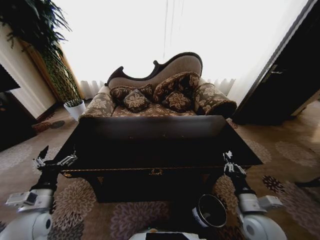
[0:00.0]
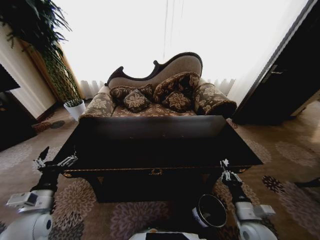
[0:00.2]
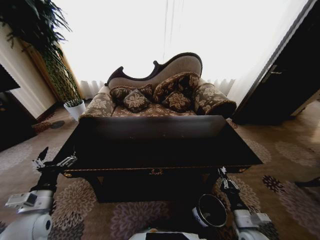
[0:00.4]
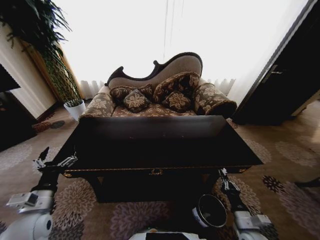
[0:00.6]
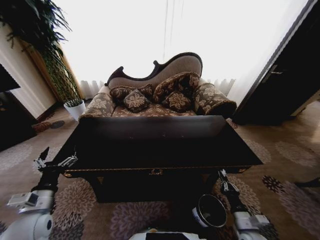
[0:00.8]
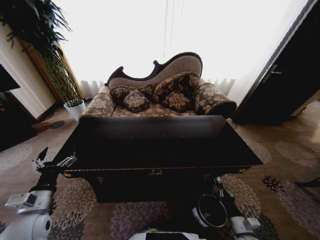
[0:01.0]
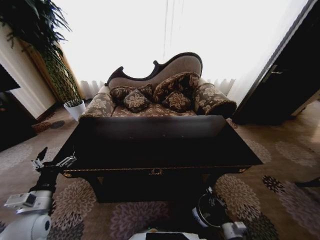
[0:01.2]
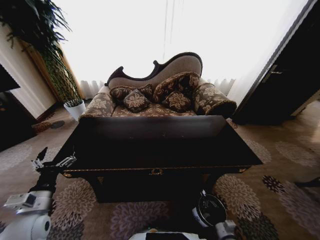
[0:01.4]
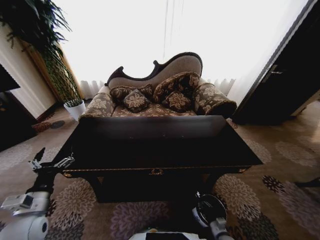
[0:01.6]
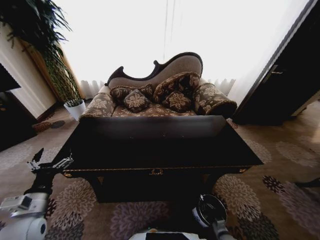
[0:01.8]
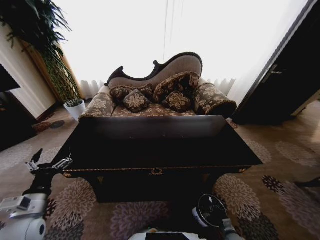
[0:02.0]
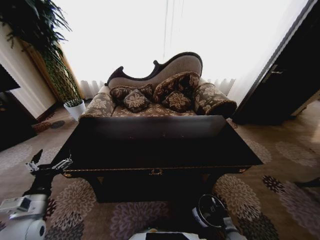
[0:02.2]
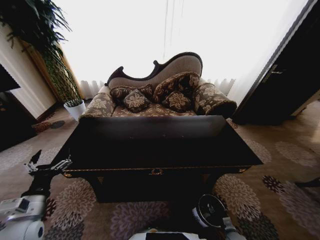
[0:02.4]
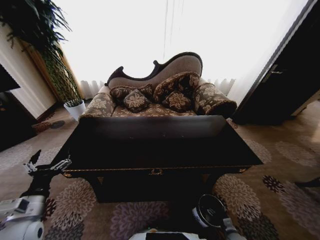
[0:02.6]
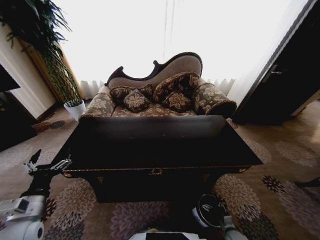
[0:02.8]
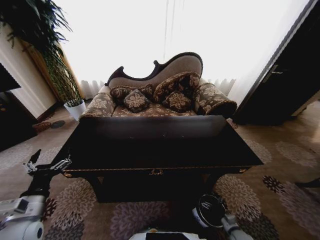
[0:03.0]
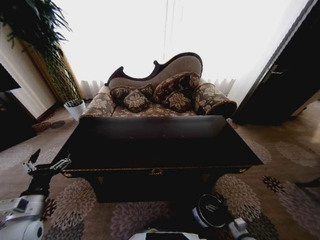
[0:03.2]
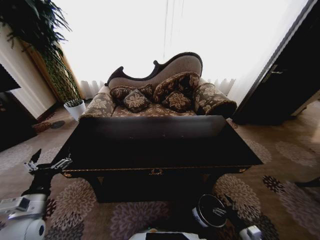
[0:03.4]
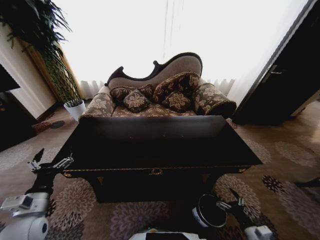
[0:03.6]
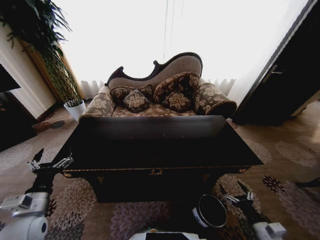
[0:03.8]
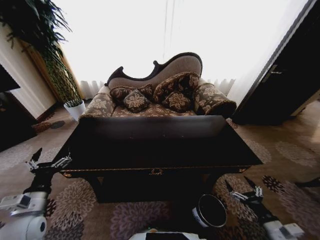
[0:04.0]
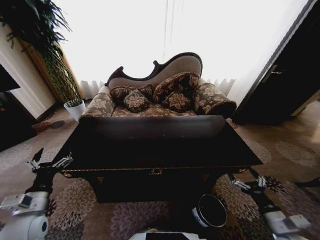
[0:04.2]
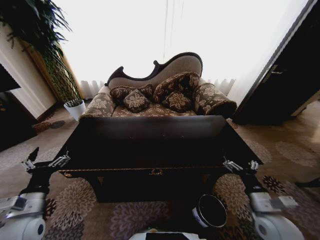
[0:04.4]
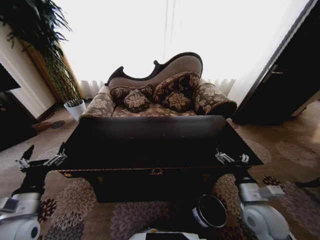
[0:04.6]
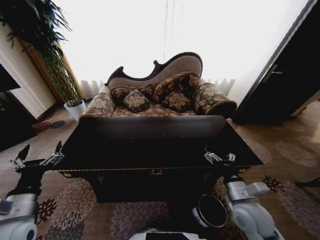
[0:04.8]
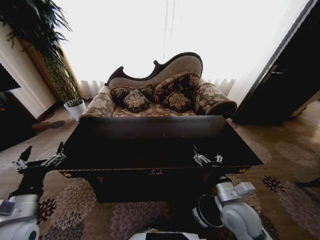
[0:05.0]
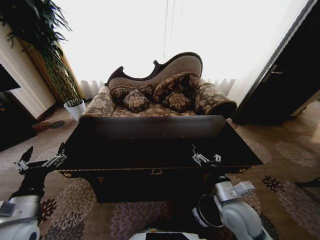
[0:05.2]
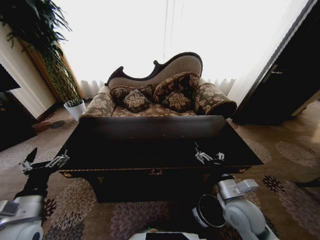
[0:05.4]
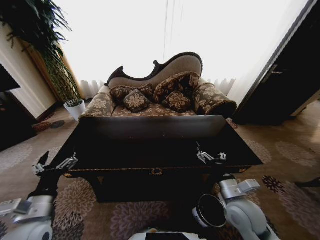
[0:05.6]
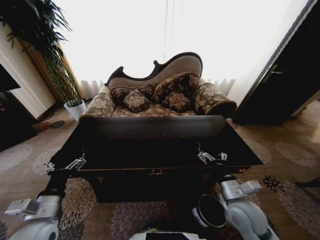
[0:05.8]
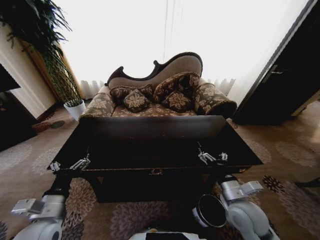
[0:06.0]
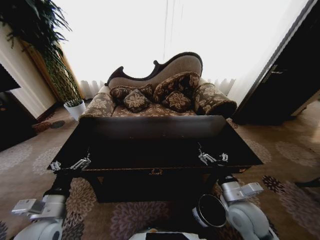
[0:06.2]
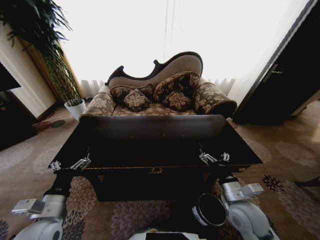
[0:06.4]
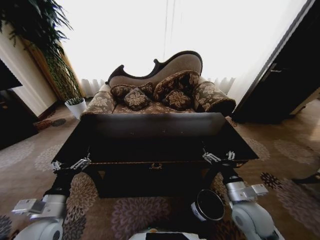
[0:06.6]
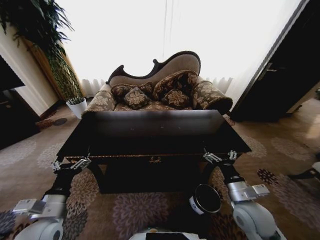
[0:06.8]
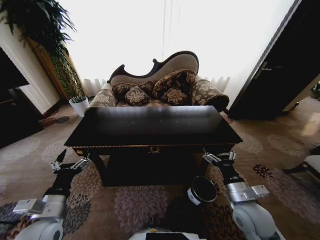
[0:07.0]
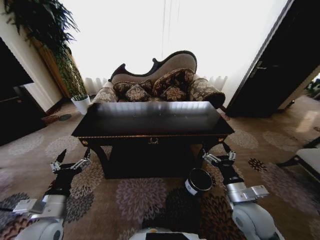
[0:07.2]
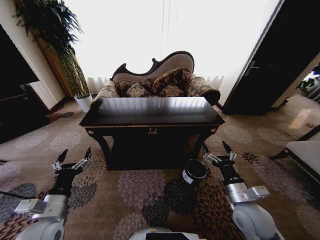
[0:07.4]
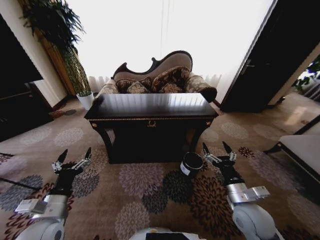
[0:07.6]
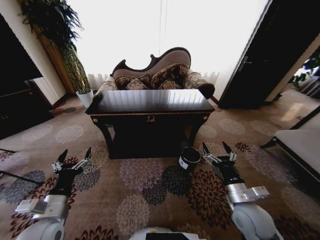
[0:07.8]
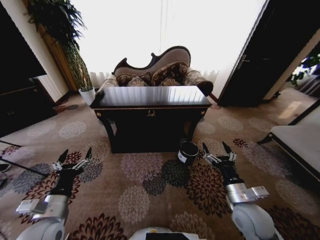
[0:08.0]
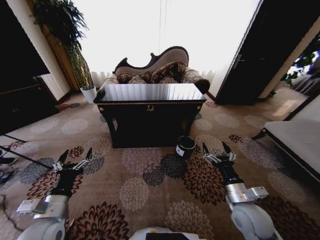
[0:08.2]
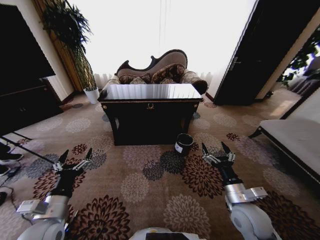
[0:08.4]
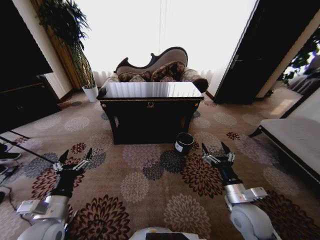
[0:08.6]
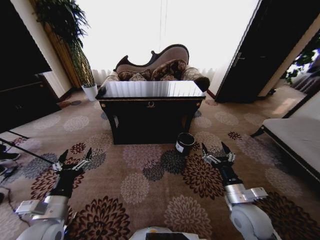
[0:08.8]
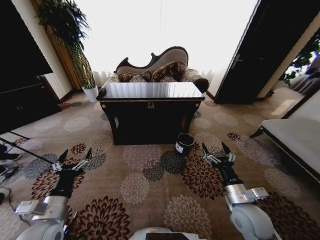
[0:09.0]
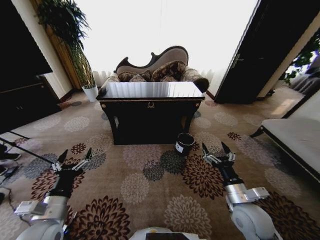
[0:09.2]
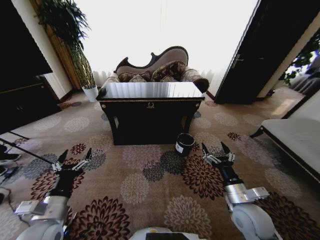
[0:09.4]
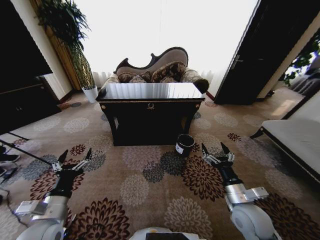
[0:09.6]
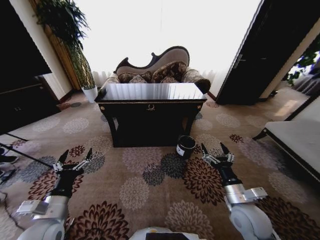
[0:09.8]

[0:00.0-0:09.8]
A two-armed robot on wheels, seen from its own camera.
Task of the whole recording: Move to the front of the table and place the trash on the table into the trash bin.
0:00.0 to 0:01.4: The right gripper goes roughly 25 cm downward.
0:02.8 to 0:04.2: The right gripper travels upward by about 25 cm.
0:04.2 to 0:05.6: The right gripper goes some 20 cm to the left, forward and upward, while the left gripper ends up roughly 5 cm from where it was.
0:08.4 to 0:09.8: Both grippers stay put.

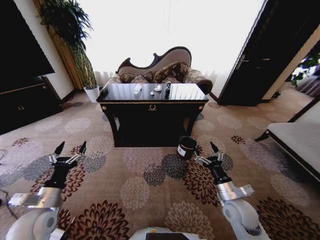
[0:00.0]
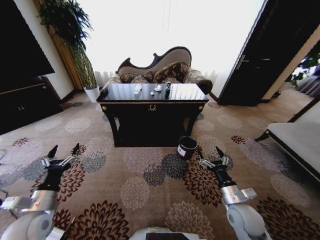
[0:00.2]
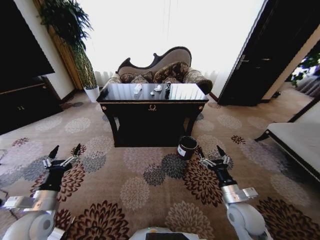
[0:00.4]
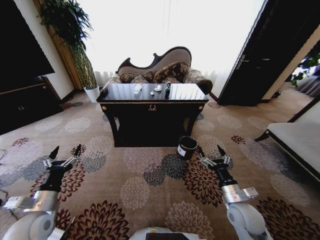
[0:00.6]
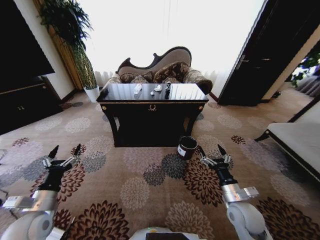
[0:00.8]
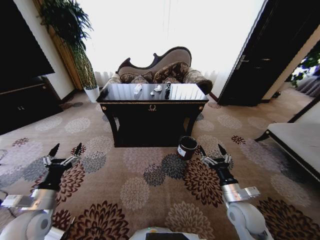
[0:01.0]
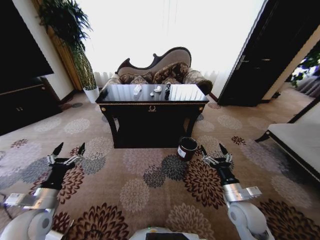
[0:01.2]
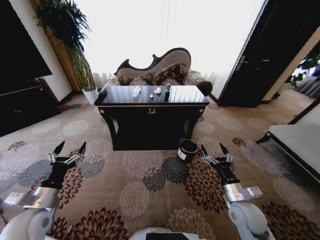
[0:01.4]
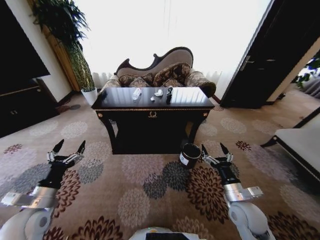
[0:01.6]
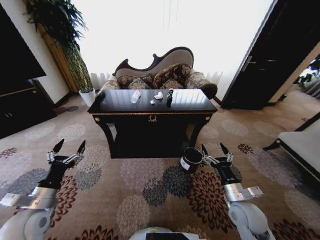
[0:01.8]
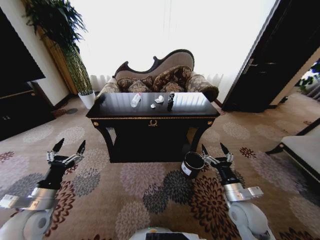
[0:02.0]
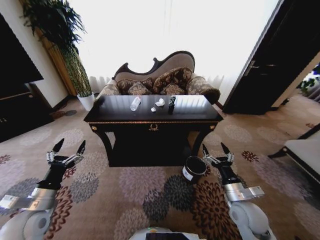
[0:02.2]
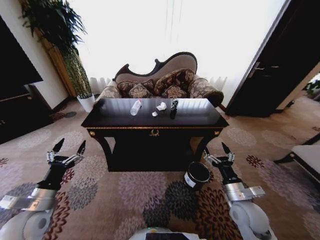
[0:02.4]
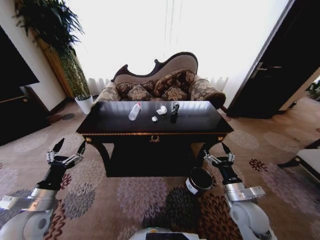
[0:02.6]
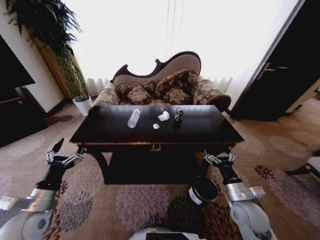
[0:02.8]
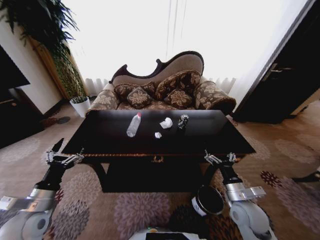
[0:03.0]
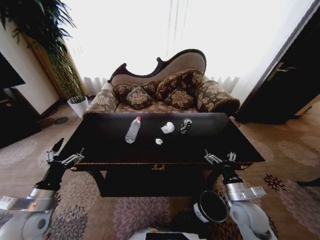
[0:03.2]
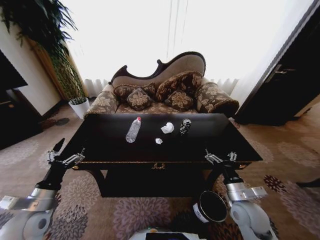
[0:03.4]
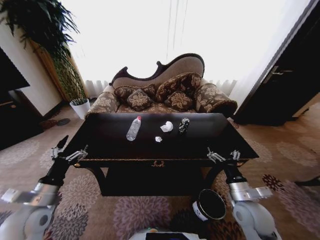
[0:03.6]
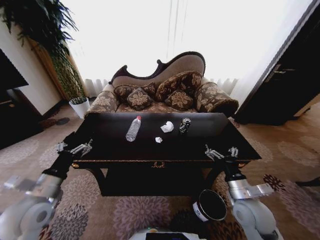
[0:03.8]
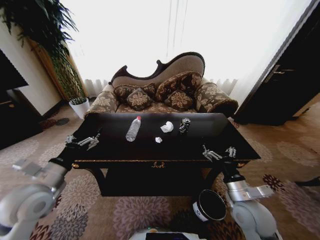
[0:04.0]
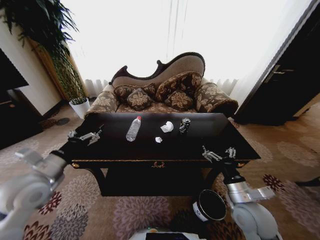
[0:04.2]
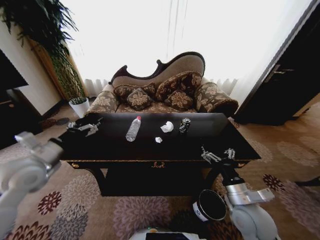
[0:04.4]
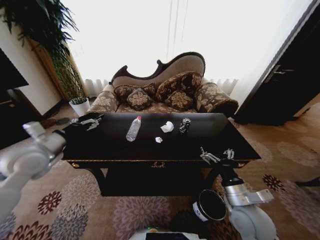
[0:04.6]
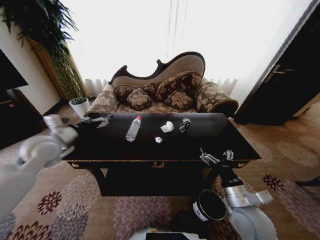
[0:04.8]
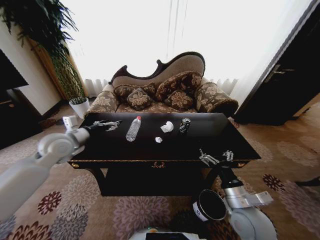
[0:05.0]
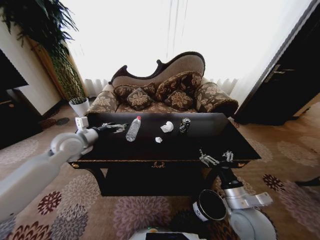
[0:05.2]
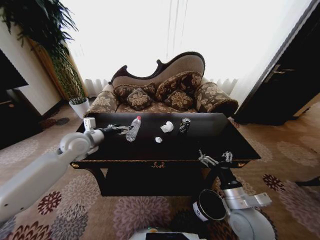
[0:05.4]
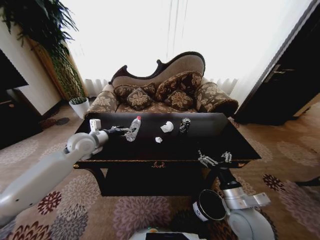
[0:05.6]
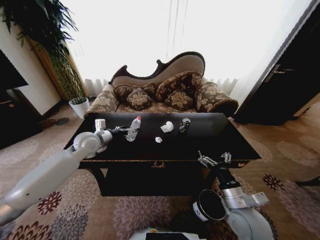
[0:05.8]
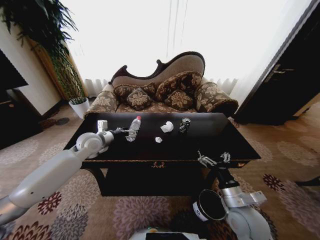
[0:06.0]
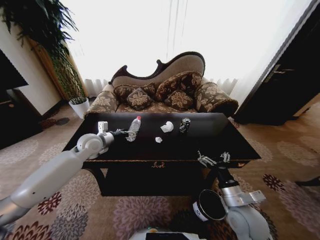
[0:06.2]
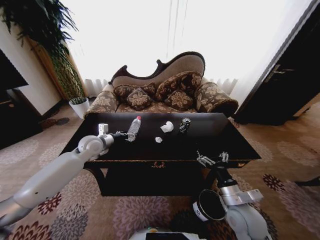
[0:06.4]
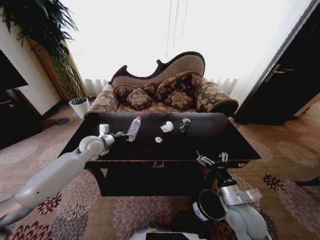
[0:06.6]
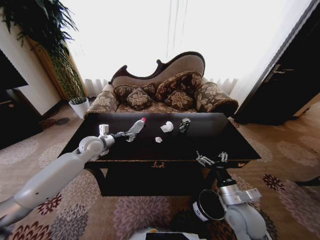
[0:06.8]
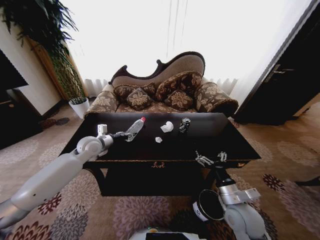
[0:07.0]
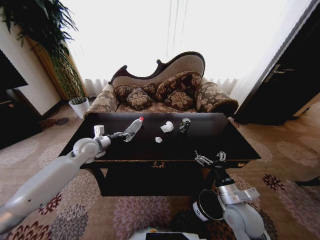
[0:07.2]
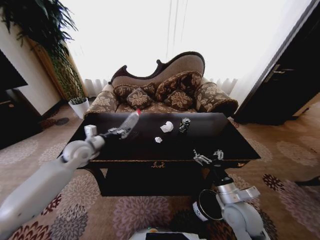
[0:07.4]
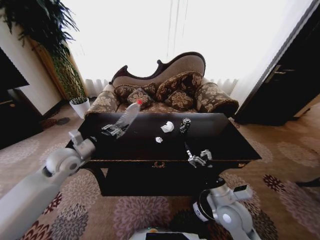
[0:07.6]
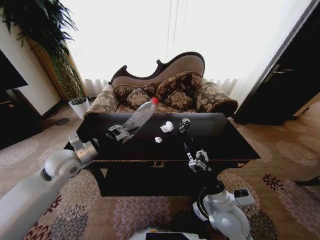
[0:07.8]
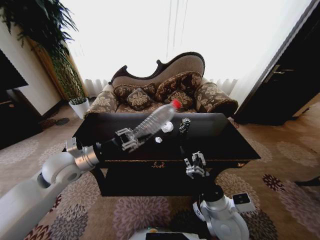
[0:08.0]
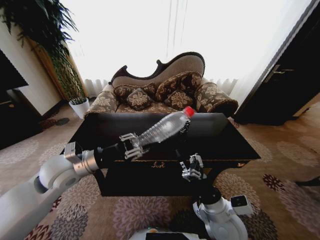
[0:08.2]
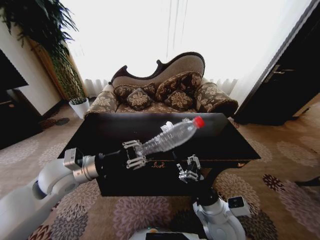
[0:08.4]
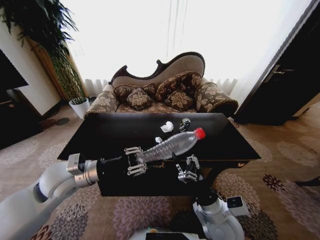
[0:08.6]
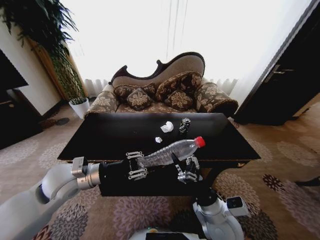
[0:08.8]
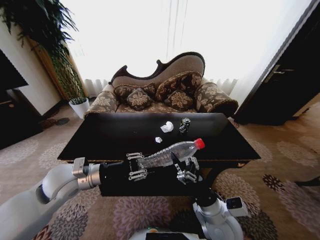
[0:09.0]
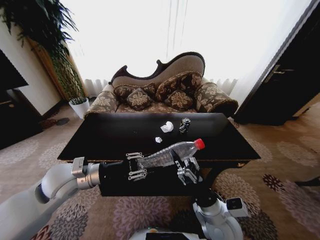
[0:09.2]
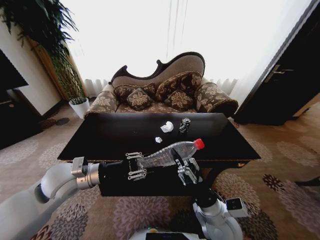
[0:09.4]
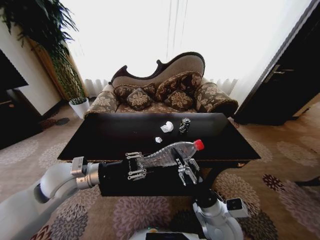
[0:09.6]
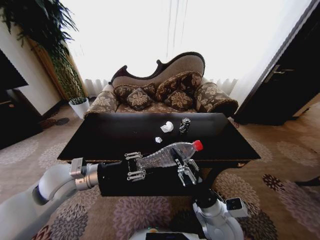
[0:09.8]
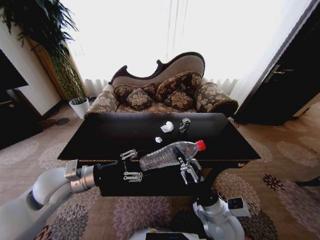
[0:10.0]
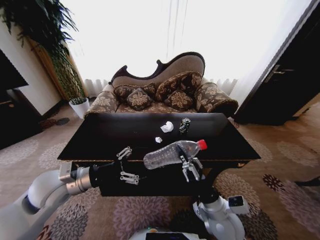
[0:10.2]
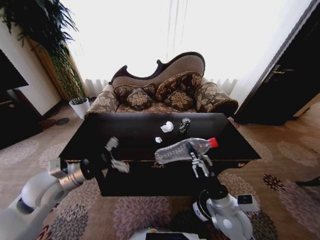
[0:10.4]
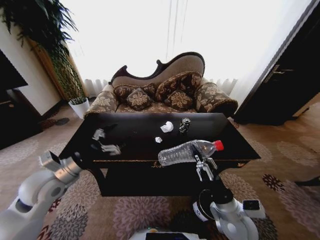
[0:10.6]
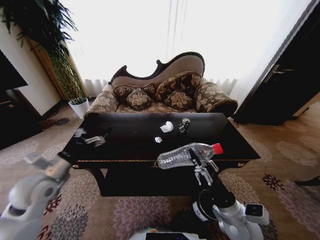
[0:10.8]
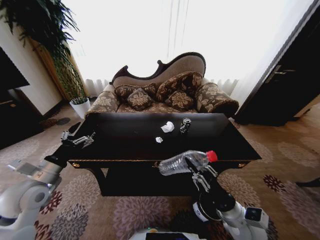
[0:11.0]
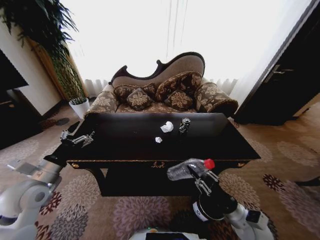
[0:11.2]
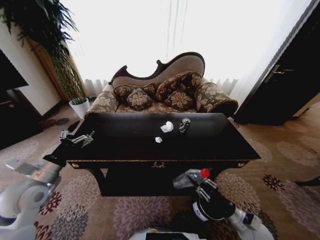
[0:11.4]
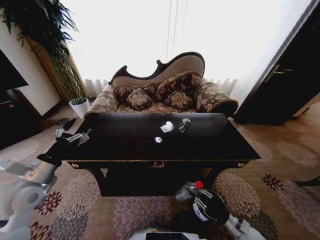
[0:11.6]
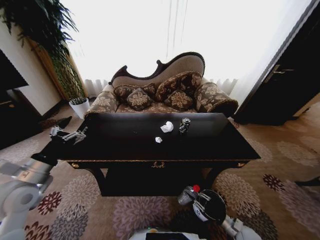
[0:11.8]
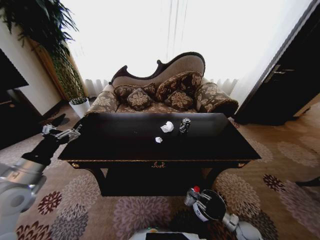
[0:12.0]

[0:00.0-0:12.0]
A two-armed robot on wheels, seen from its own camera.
Task of the whole recording: Move to the front of the table and place the trash on the table into the trash bin.
0:03.0 to 0:04.4: The left gripper heads upward and forward, covering roughly 15 cm; the right gripper shifts by roughly 5 cm.
0:04.4 to 0:06.0: The left gripper moves forward and to the right, roughly 20 cm.
0:06.0 to 0:07.6: The left gripper moves backward and to the left, some 10 cm, and closes.
0:07.6 to 0:09.0: The right gripper moves to the left, approximately 5 cm, while the left gripper moves backward and to the right, approximately 10 cm.
0:09.0 to 0:10.4: The right gripper closes up, while the left gripper opens its fingers.
0:10.4 to 0:12.0: The right gripper heads downward and to the right, covering about 35 cm; the left gripper is displaced to the left by approximately 10 cm.
